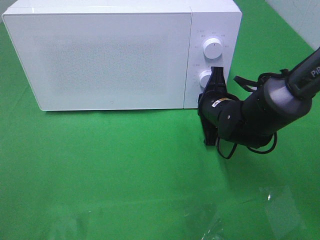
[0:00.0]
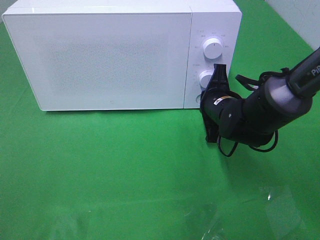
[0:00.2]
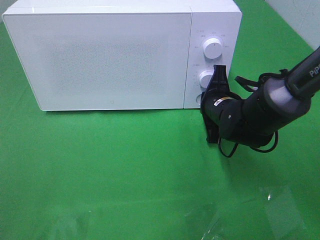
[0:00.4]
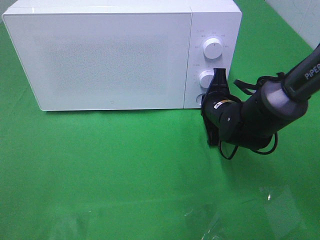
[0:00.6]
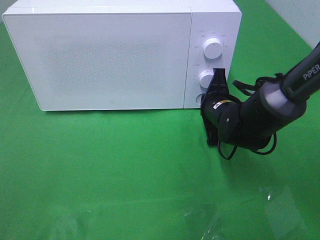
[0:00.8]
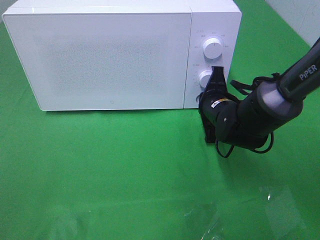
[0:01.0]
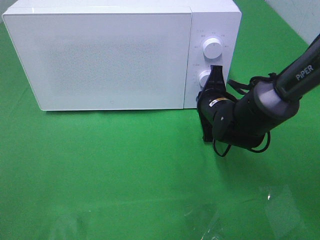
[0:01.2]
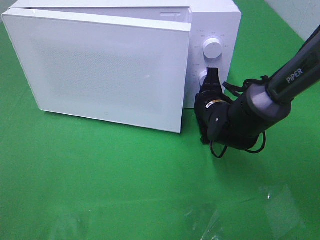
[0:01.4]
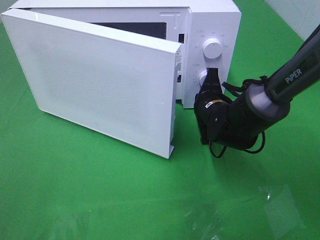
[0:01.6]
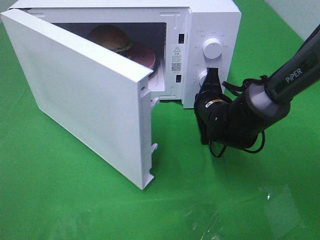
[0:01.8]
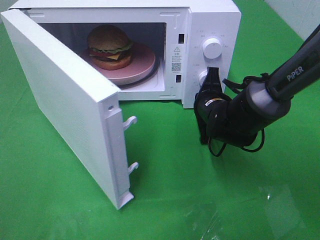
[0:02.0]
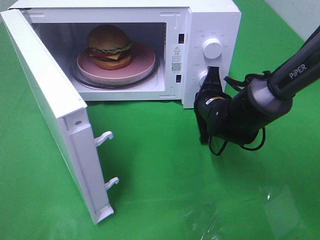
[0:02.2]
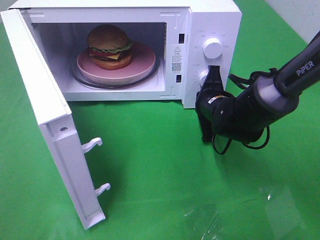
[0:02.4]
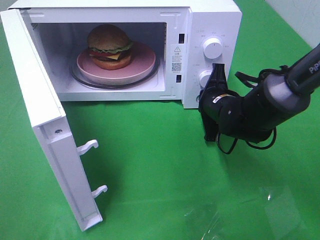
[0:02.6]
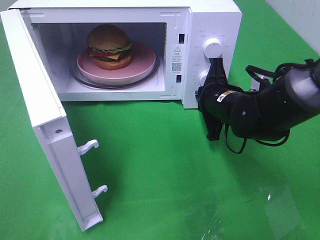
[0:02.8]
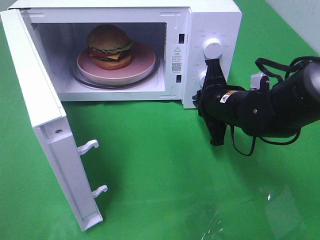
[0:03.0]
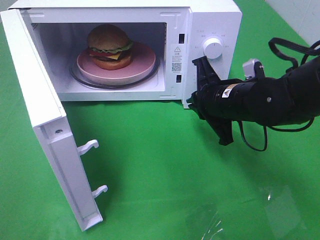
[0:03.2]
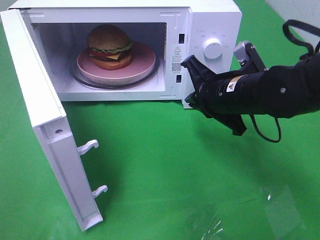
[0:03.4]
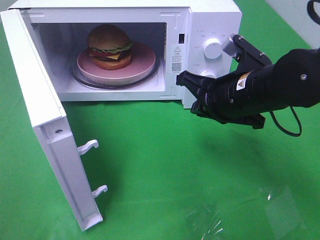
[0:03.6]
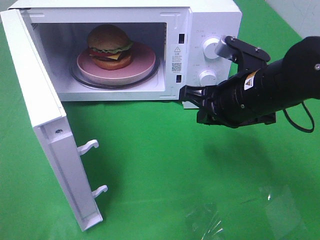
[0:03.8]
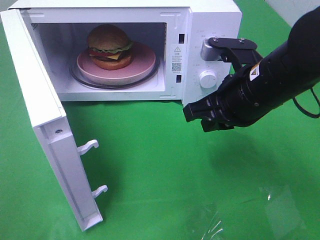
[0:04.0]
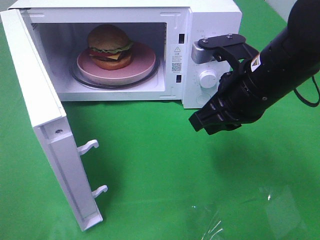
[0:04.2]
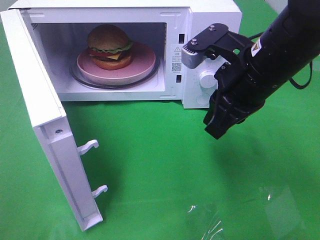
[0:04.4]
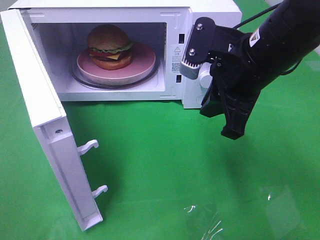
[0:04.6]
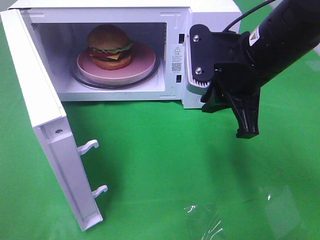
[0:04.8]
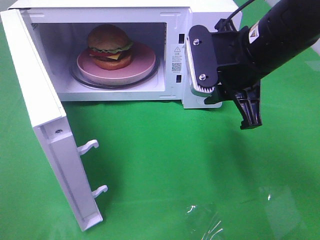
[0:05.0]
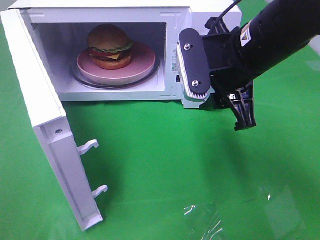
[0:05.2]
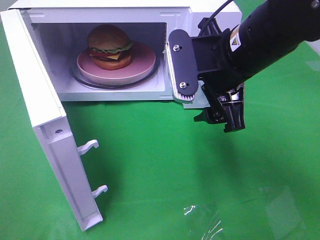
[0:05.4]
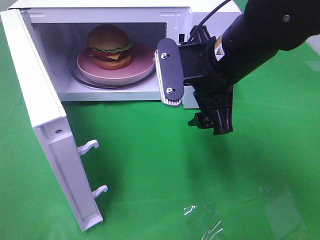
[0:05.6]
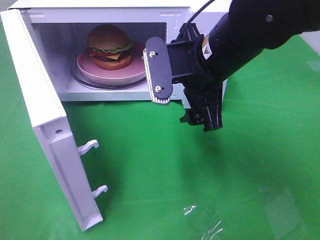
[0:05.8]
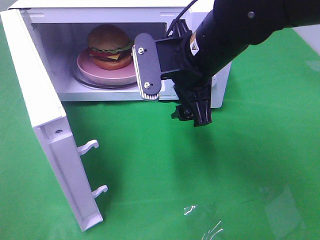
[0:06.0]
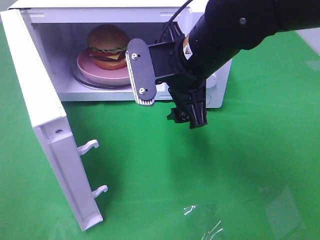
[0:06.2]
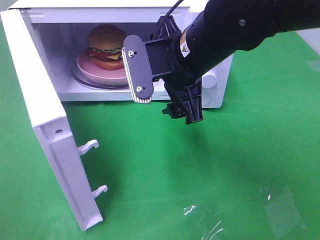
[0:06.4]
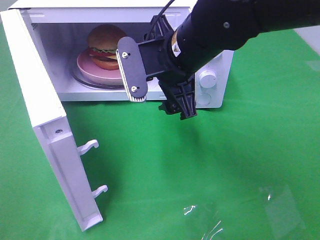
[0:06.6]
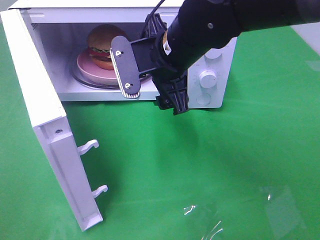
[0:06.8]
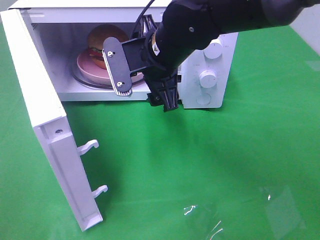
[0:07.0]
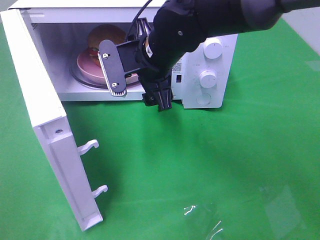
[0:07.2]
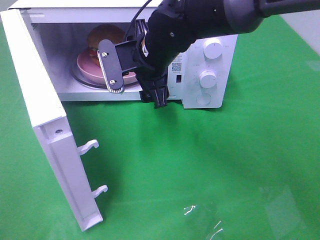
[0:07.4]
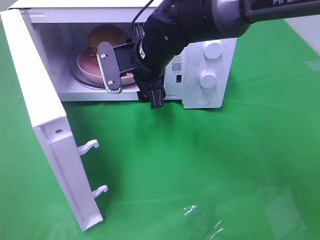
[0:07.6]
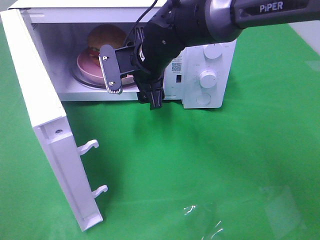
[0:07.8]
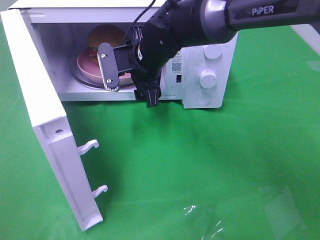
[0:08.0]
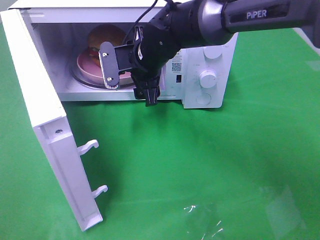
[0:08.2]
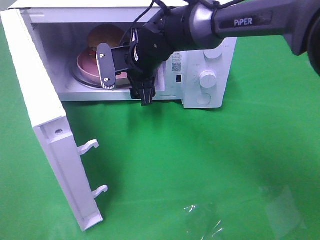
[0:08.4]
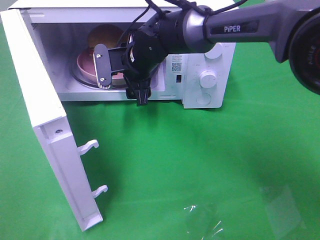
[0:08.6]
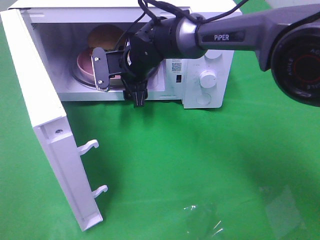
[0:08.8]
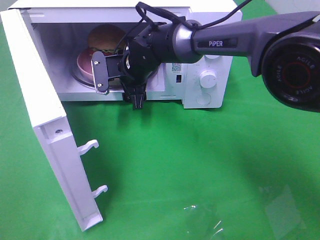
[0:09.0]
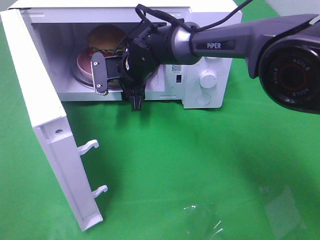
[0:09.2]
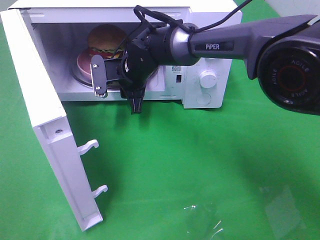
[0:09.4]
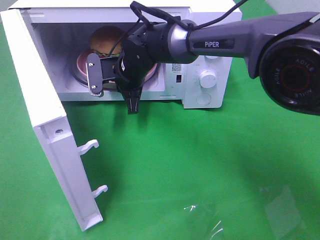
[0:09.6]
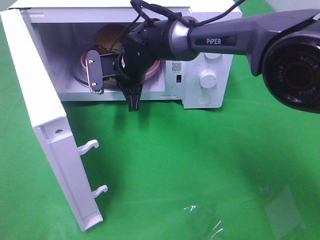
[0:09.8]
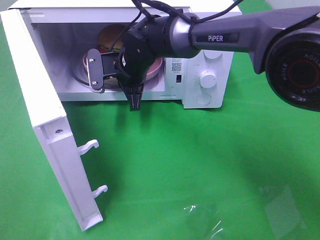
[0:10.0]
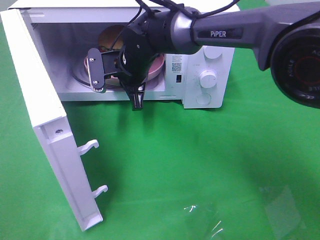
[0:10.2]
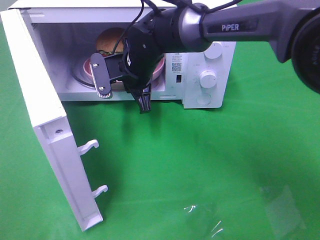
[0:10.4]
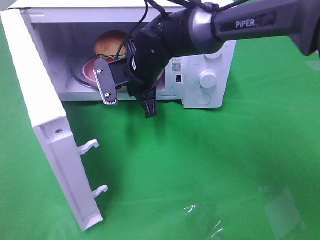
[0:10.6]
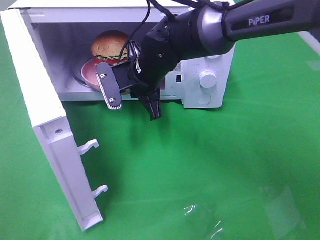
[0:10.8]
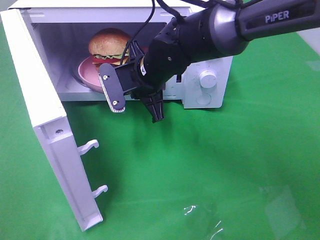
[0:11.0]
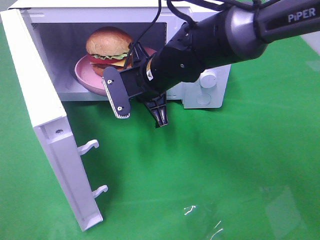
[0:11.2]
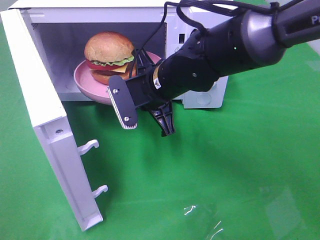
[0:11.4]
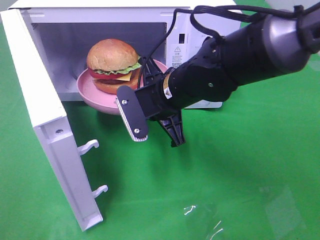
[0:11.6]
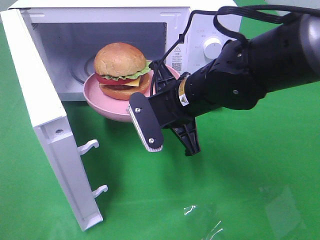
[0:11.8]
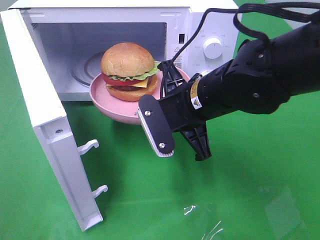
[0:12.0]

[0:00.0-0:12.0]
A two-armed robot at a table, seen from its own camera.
Task of the whole recording: Heat the burger.
Step, 0:00.0 to 0:03.2: Right hand: press the switch.
Step, 0:03.4 to 0:09.6: Right hand: grab the plate with the hamburger.
0:01.6 to 0:03.0: The right gripper shifts by some 5 cm.
0:03.0 to 0:04.4: The right gripper travels upward and backward by about 15 cm.
0:04.4 to 0:06.0: The right gripper travels to the left by about 5 cm, and opens.
0:06.0 to 0:07.6: The right gripper moves forward and to the left, some 10 cm.
0:07.6 to 0:09.0: The right gripper moves forward and downward, roughly 10 cm.
0:09.0 to 0:10.4: The right gripper closes.
0:10.4 to 0:12.0: The right gripper travels backward and to the right by some 15 cm.

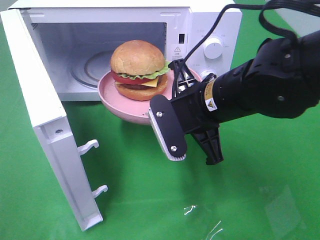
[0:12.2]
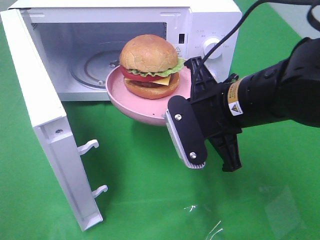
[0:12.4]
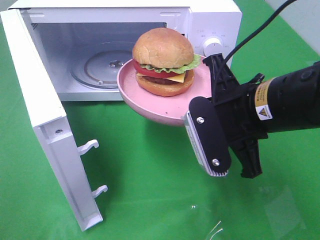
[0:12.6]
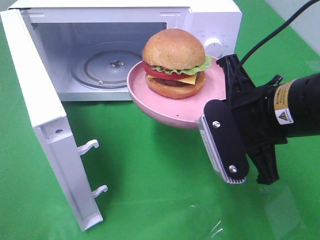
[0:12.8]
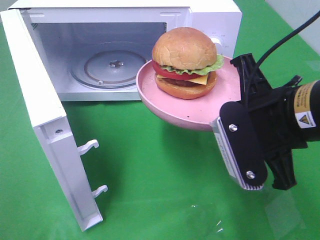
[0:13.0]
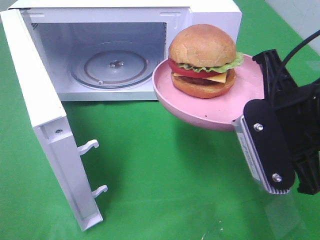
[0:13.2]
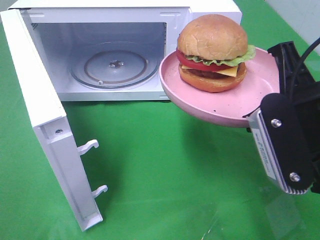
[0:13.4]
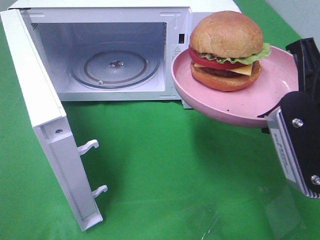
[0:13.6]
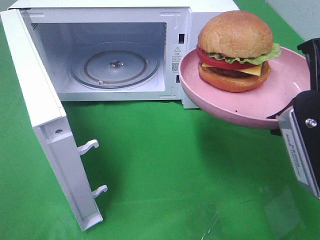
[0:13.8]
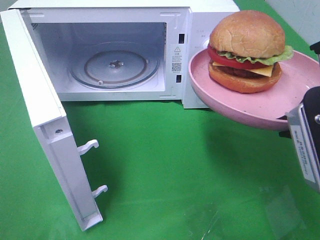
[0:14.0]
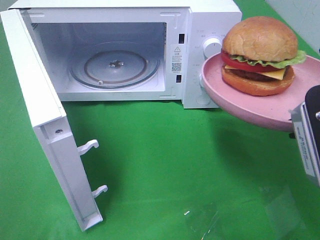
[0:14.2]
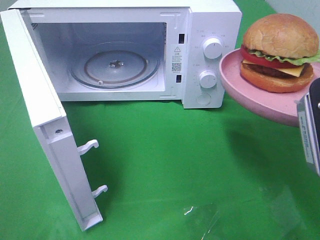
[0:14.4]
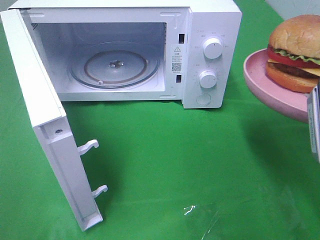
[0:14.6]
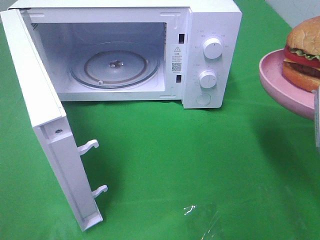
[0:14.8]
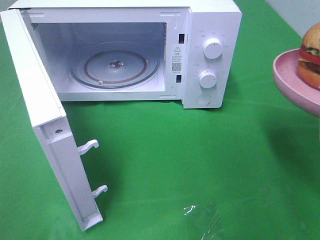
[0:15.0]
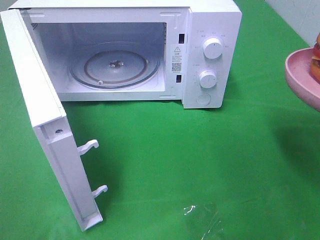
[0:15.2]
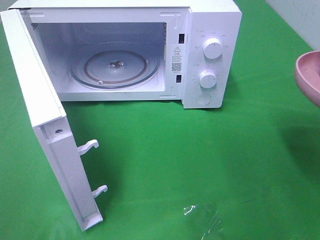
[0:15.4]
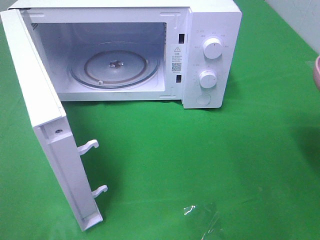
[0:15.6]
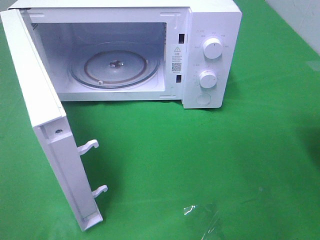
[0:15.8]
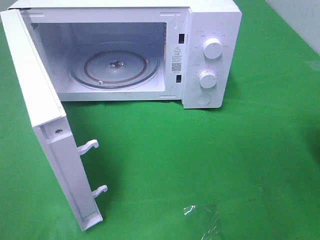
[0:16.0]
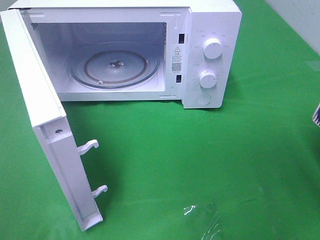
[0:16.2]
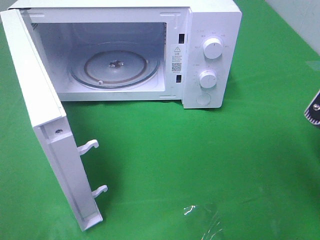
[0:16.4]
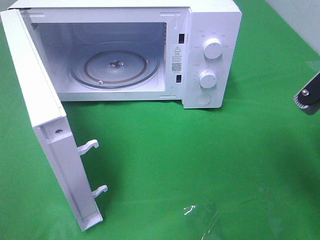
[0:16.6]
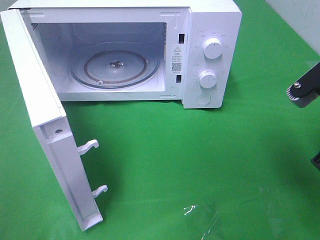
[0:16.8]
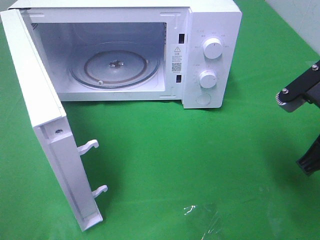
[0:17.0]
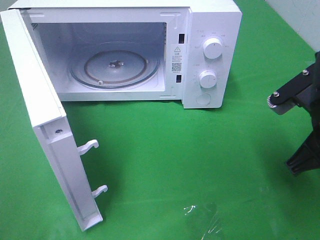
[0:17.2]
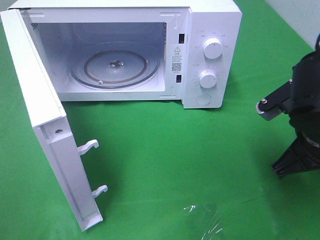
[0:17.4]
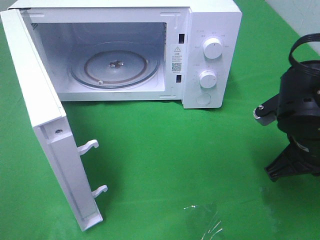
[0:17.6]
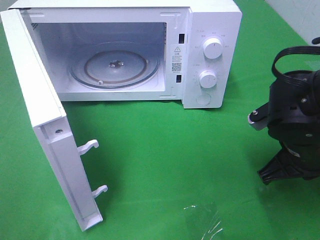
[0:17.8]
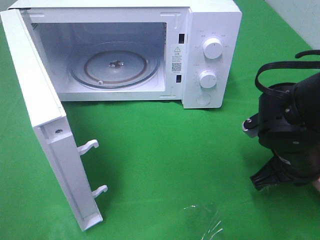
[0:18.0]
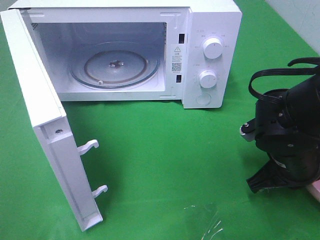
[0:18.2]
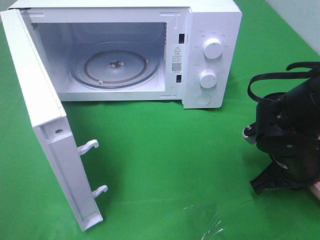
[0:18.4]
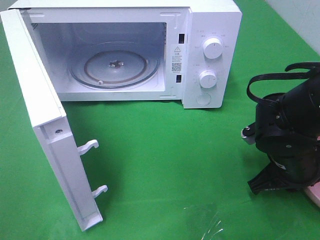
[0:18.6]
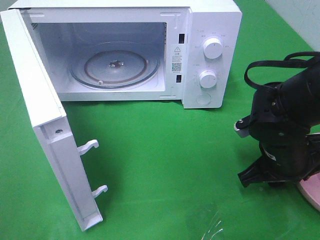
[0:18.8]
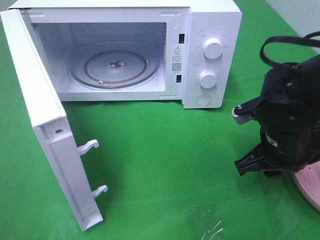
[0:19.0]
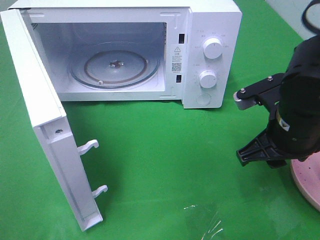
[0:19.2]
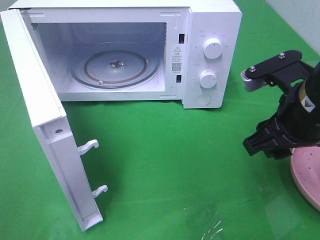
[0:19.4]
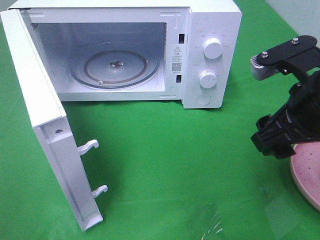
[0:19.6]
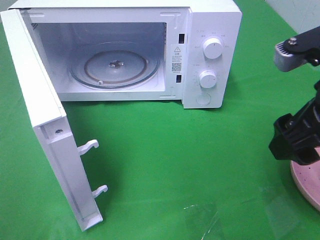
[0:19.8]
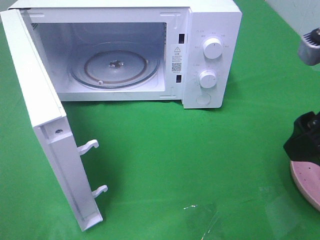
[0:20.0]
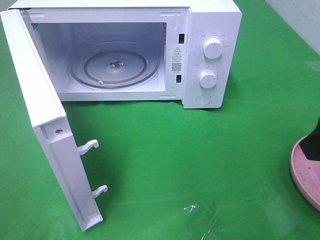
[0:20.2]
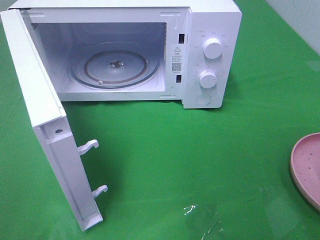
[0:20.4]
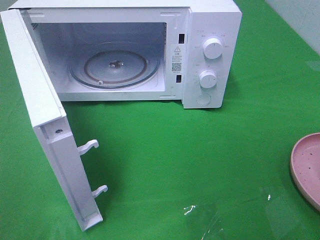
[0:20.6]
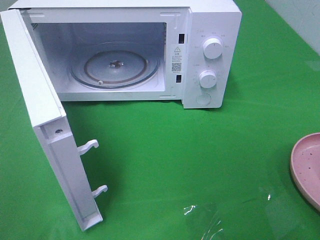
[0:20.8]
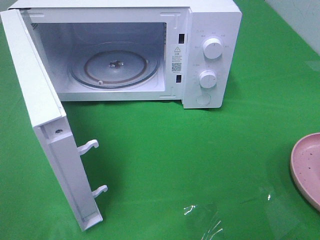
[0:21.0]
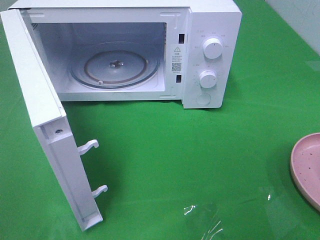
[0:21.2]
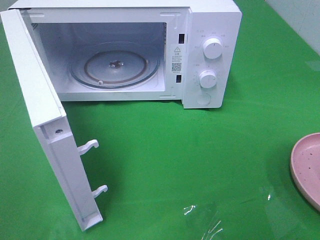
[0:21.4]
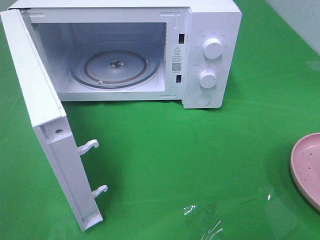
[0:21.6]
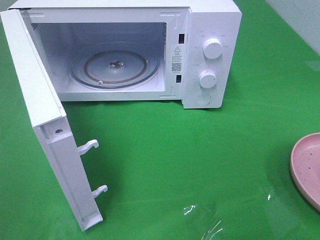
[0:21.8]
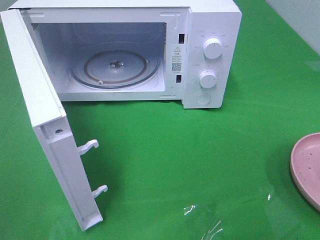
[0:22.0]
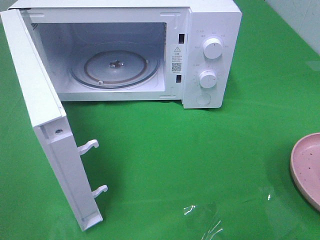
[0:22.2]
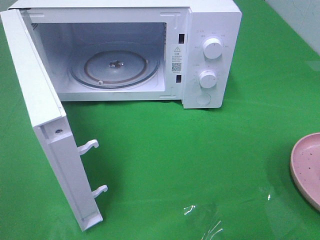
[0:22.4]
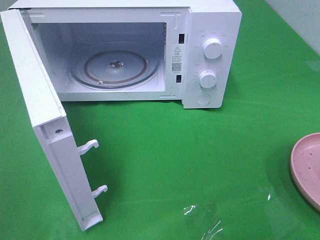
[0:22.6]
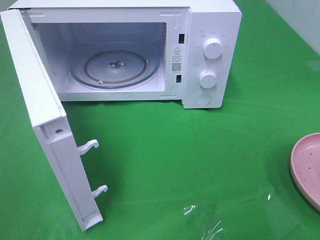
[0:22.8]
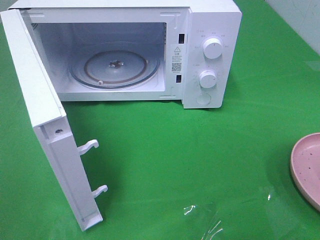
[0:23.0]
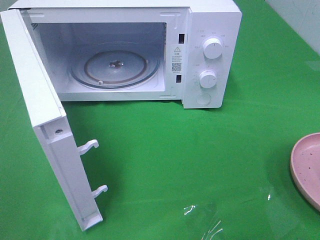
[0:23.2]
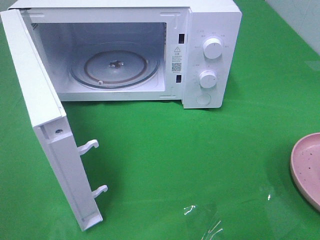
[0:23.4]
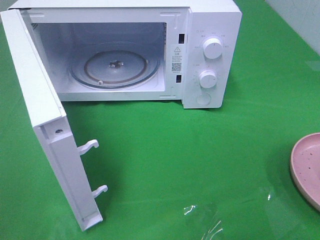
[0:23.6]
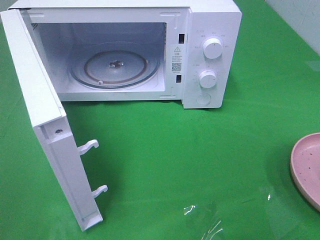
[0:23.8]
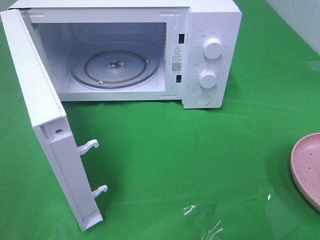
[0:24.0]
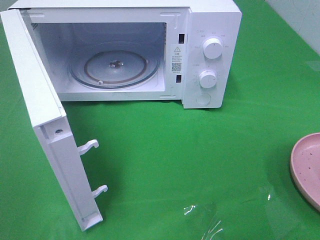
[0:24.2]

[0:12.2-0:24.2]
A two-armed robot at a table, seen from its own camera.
Task of the whole recording: Heat the burger.
Step, 0:12.2 to 0:19.4: Right hand: place the plate on the table.
0:12.2 to 0:13.8: The right gripper goes roughly 15 cm to the right, backward and upward.
0:16.6 to 0:18.2: The right gripper moves downward and forward, approximately 15 cm.
0:18.2 to 0:19.8: The right gripper goes about 15 cm upward, and opens.
0:19.8 to 0:21.2: The right gripper is displaced backward and to the right by roughly 15 cm.
